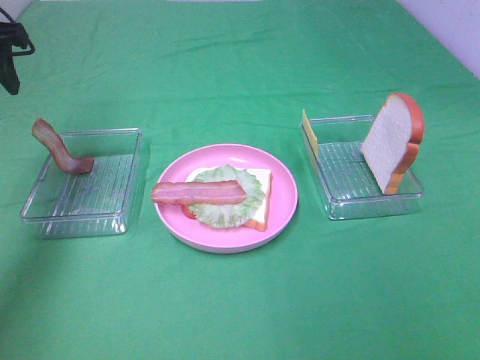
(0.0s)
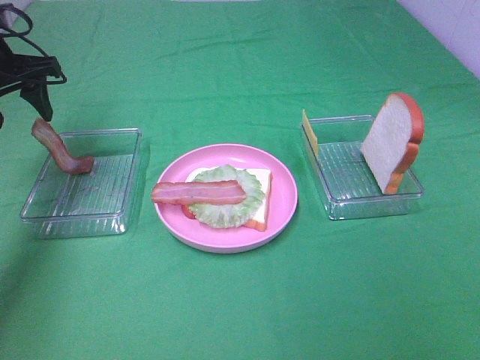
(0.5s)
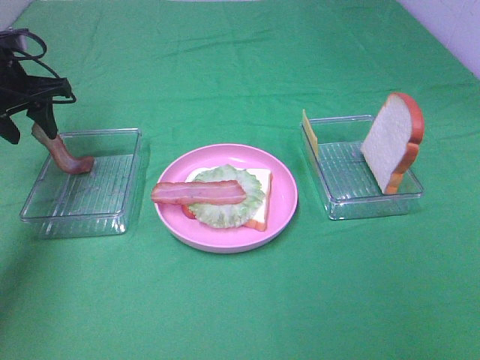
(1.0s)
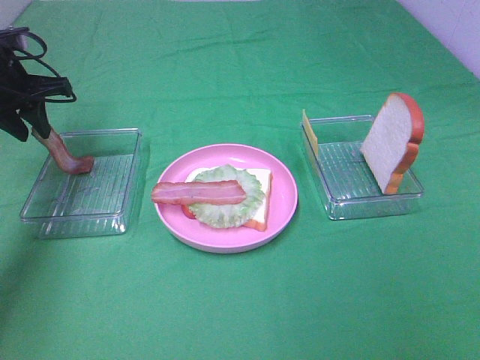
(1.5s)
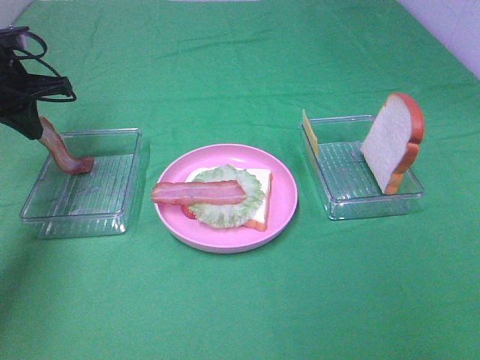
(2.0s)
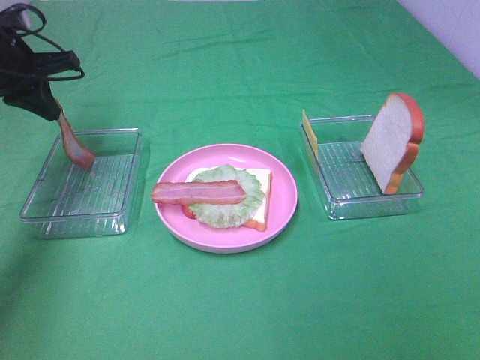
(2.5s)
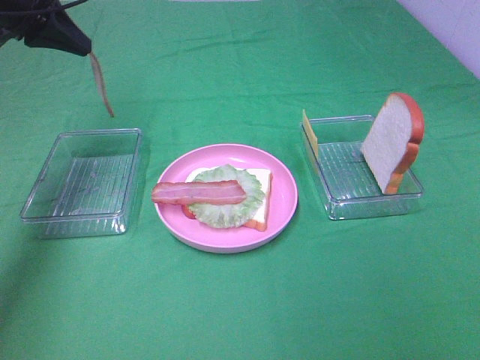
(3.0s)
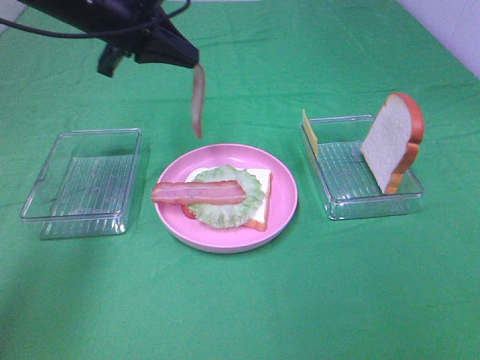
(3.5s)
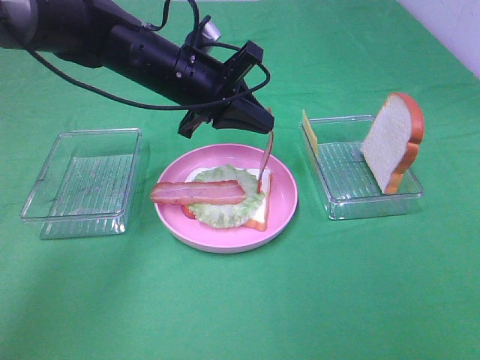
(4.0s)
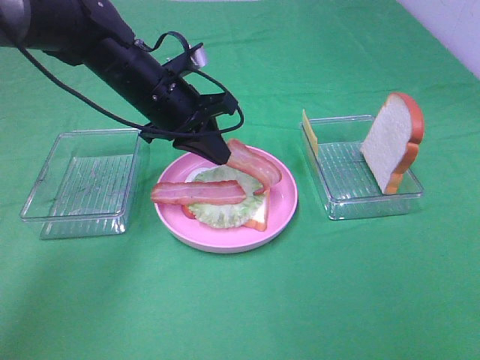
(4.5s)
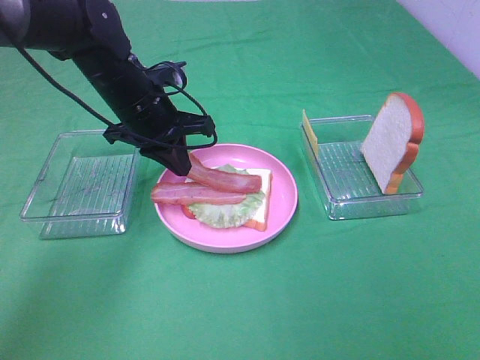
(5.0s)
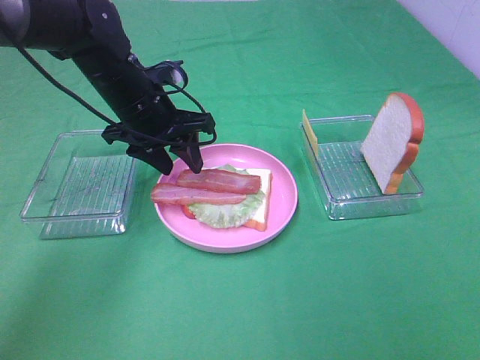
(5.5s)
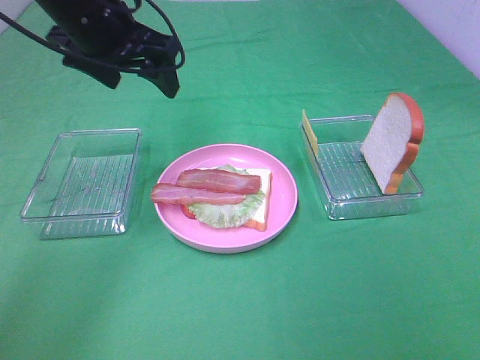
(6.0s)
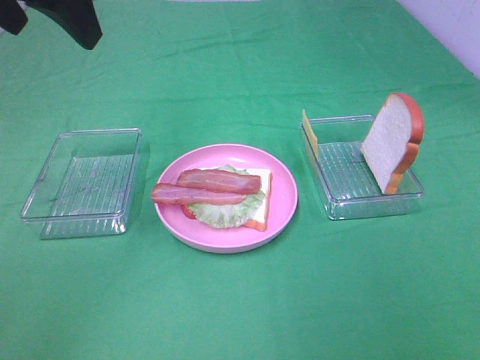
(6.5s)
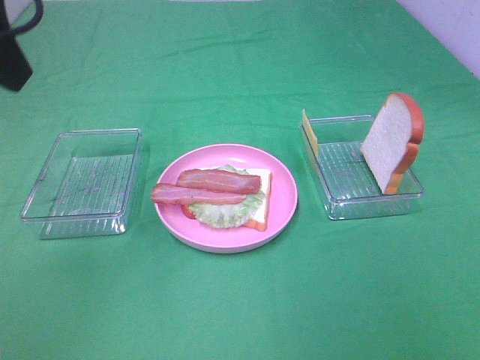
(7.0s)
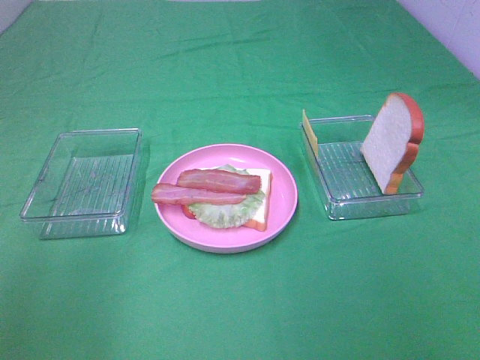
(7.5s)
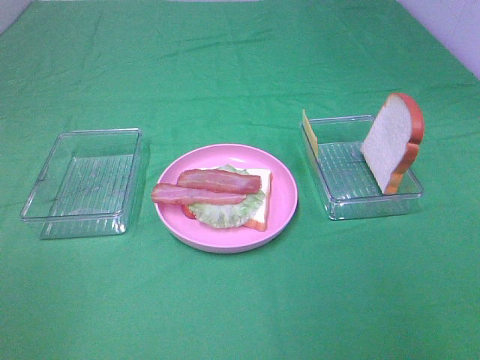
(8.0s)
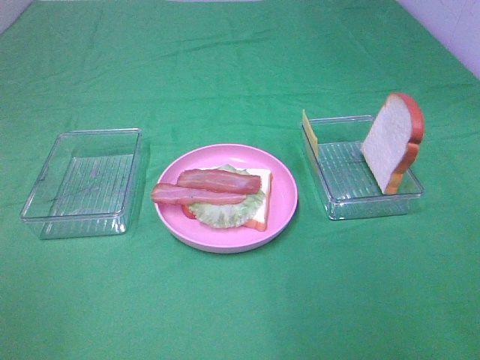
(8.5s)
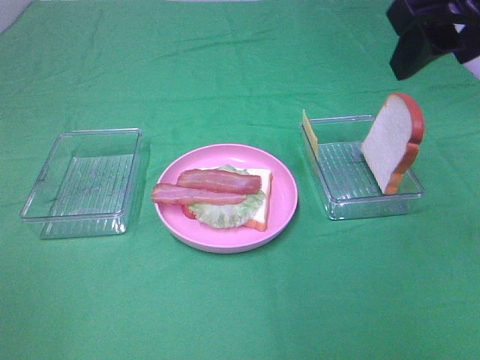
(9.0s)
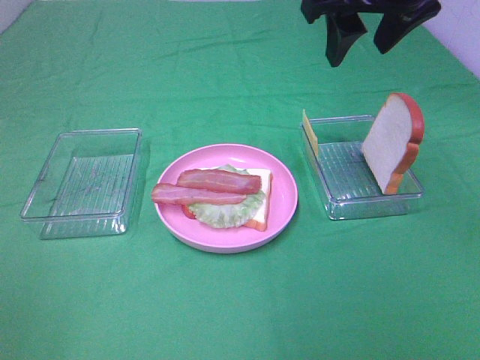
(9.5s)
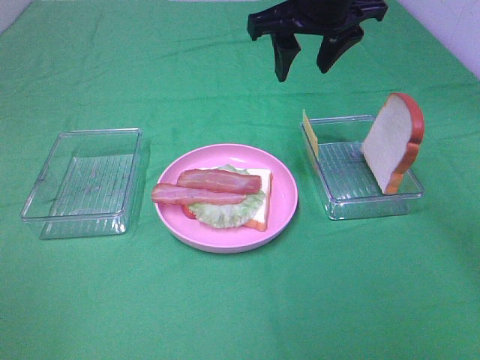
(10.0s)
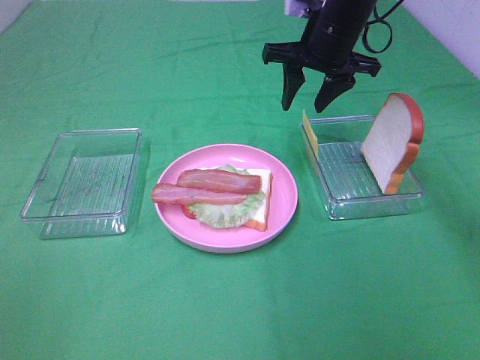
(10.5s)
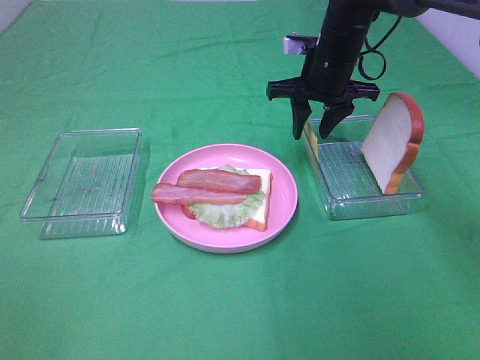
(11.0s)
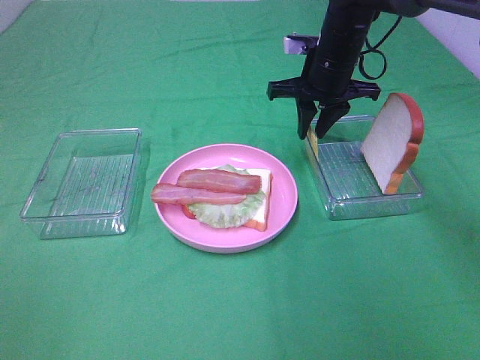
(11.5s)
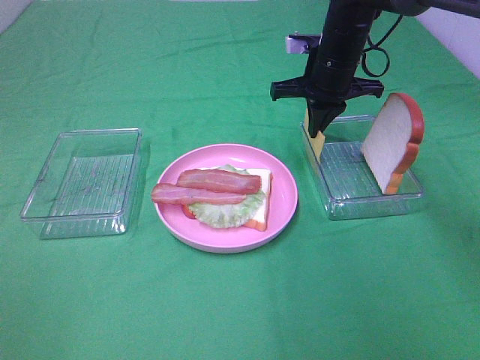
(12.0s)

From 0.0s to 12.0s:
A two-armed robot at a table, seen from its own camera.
Task of the whole recording: Make sandwiches.
Step, from 0.0s to 2.0s: Left hand:grab the bacon.
Step, from 2.5s to 5.5s: Left hand:place bacon on bacon.
From 0.0s to 2.0s: The left gripper heads downward and forward, covering roughly 10 cm, and closes.
From 2.0s to 4.0s: The left gripper shifts approximately 25 cm to the right.
From 4.0s to 6.0s: The left gripper heads upward and to the left, covering about 10 cm, and opens its fingers.
From 6.0s to 8.0s: The left gripper moves backward and to the left, roughly 40 cm, while the right gripper travels forward by roughly 5 cm.
From 8.0s to 10.0s: The right gripper moves forward and to the left, approximately 40 cm.
From 10.0s to 12.0s: The right gripper shifts about 10 cm downward and forward, and closes.

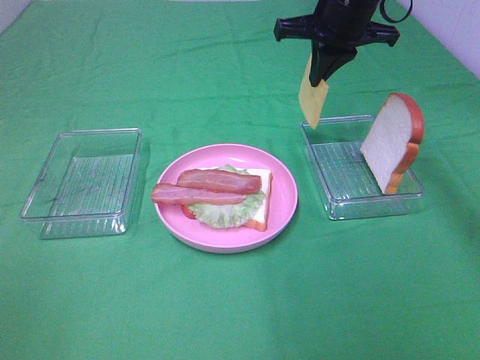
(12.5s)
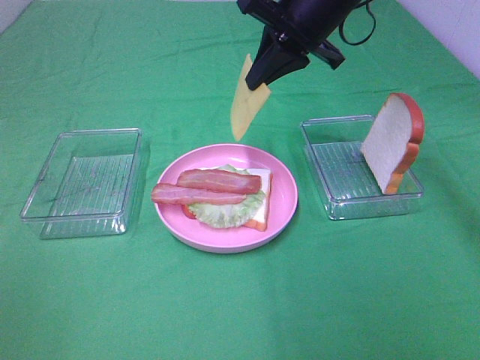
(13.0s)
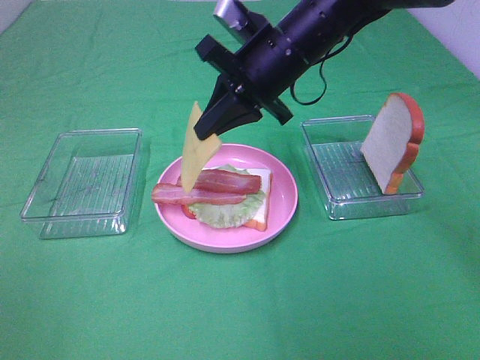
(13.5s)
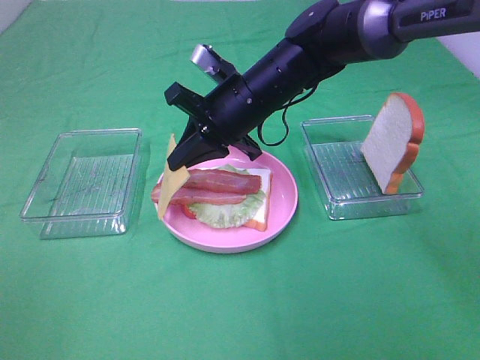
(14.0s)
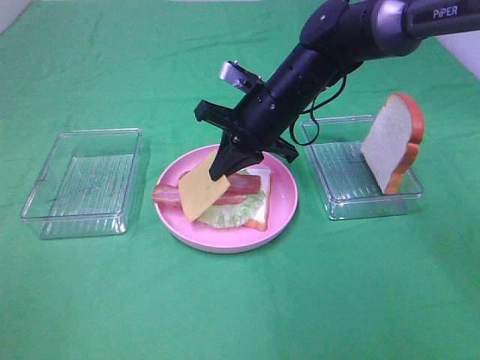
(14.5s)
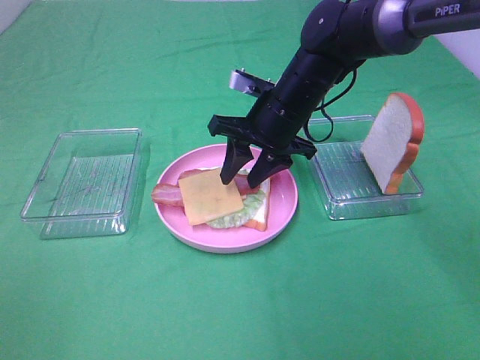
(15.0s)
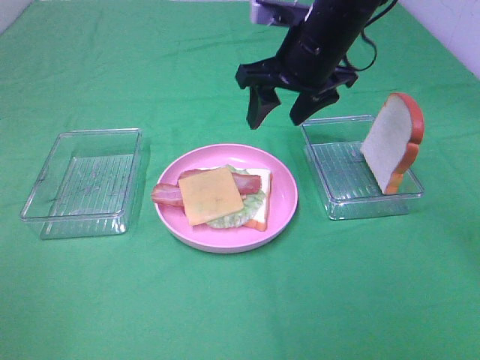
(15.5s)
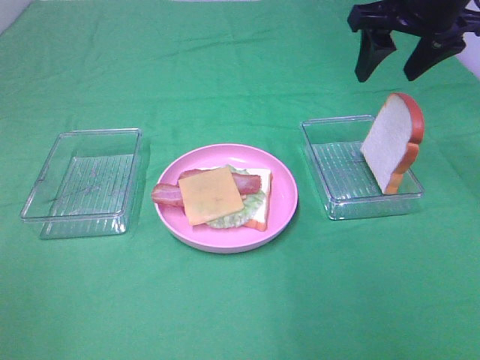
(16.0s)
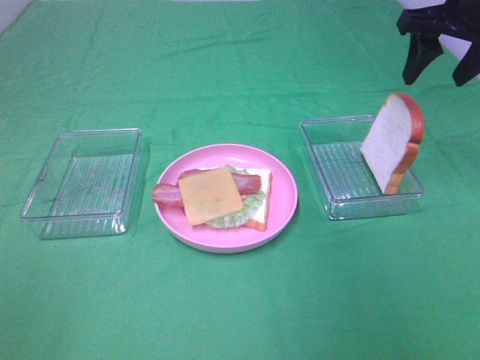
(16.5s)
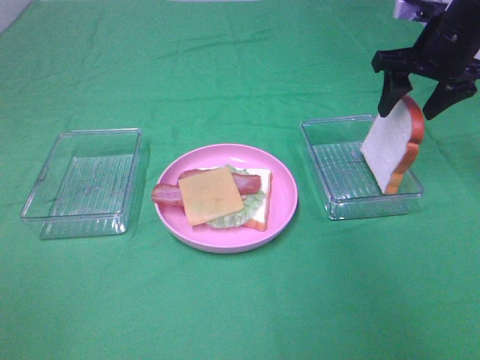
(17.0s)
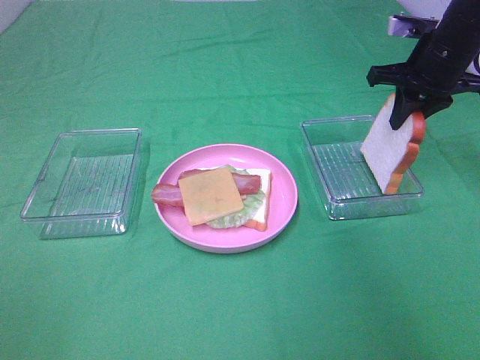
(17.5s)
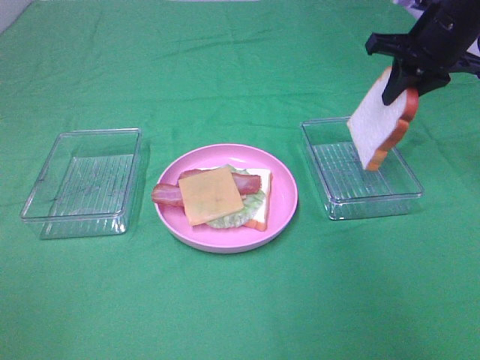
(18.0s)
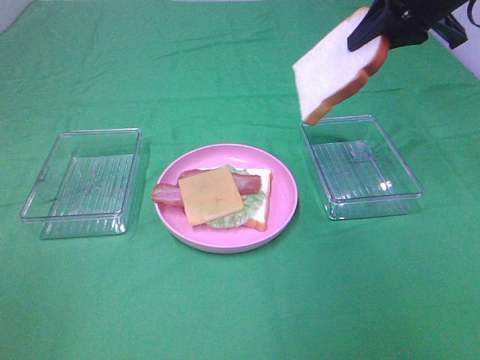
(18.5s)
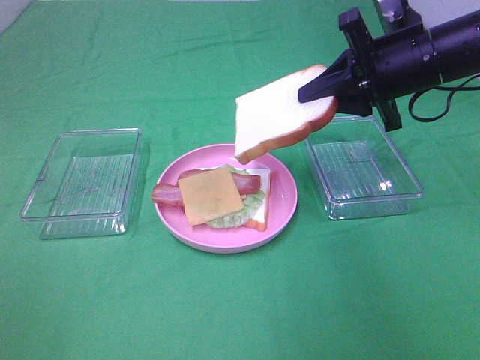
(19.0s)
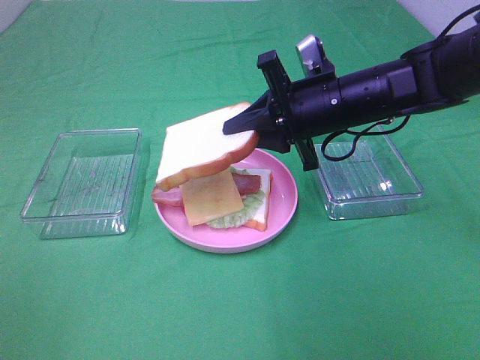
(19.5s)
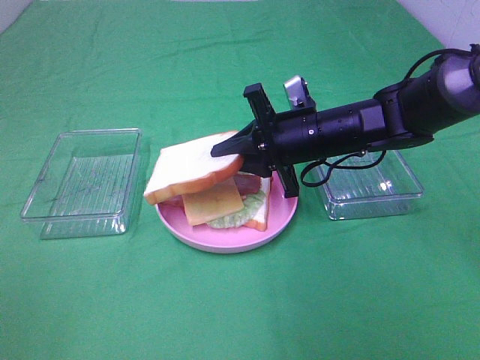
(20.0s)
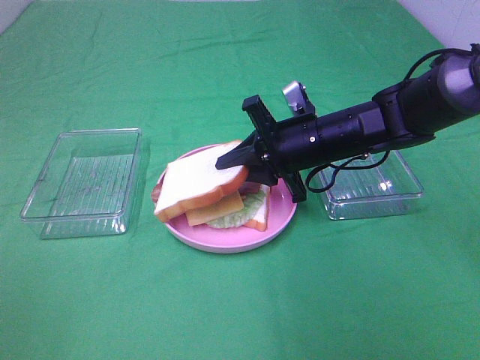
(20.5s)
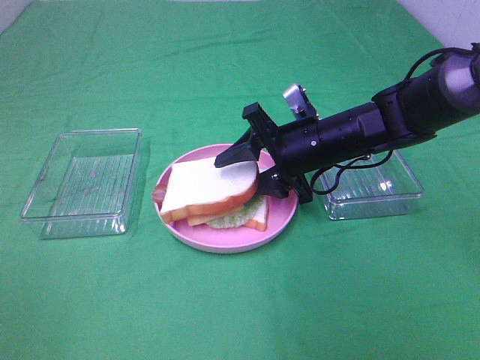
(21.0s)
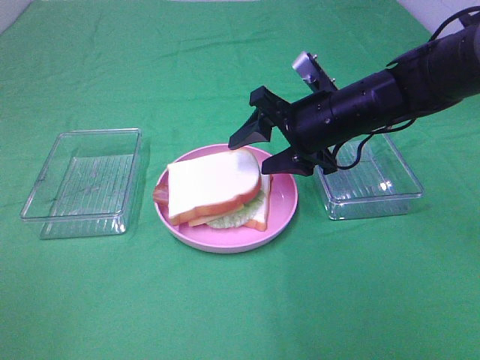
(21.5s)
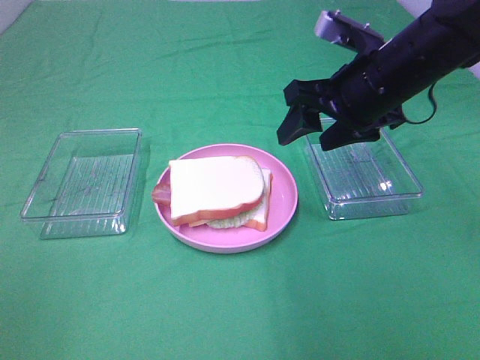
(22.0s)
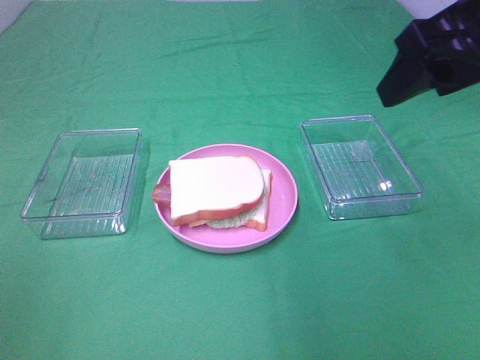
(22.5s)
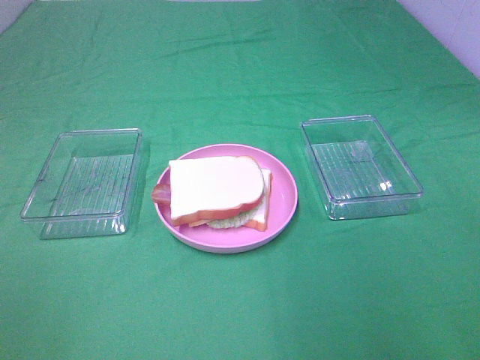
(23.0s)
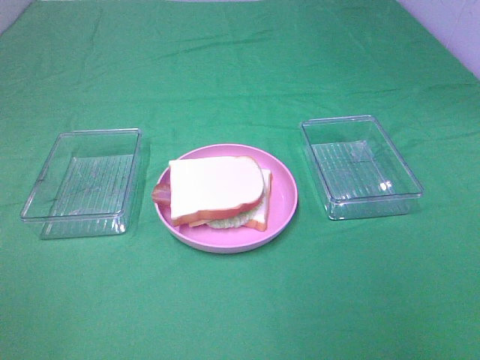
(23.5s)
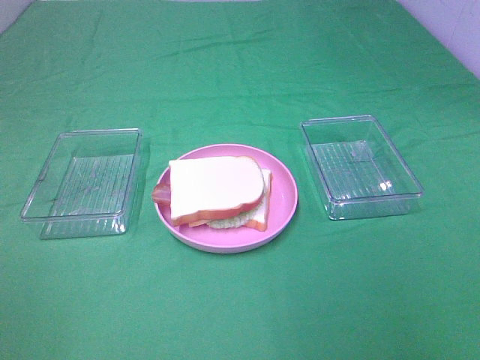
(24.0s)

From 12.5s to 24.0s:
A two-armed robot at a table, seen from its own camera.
Task of the whole recording: Make sandwiches.
Step, from 12.5s to 15.0s: Right hand:place the cheese slice on top of the bacon.
Step, from 15.5s to 17.5s: Right hand:grab the bread slice.
Step, from 18.0s to 21.5s: Right hand:place the bread slice on the cheese slice.
From 12.5s to 14.5s: The right gripper shifts some 15 cm downward, to the left and backward.
From 14.5s to 16.5s: The right gripper shifts about 25 cm to the right and upward, and opens up.
From 16.5s to 18.5s: The right gripper goes downward and returns, approximately 10 cm each way, and closes up.
From 18.5s to 20.0s: The right gripper moves downward and to the left, roughly 20 cm.
From 20.0s to 22.0s: The right gripper goes some 10 cm upward, and opens its fingers.
From 22.0s to 24.0s: The right gripper travels backward by approximately 30 cm.

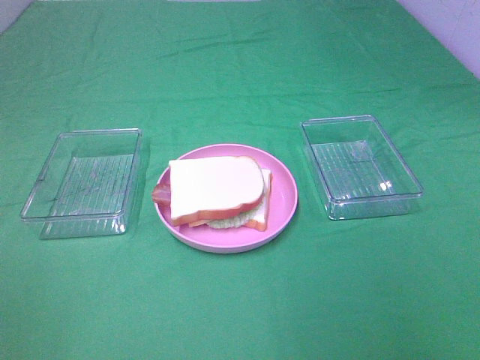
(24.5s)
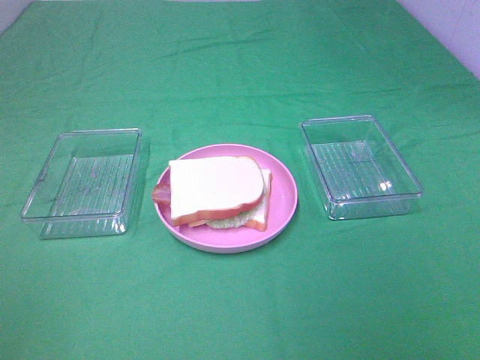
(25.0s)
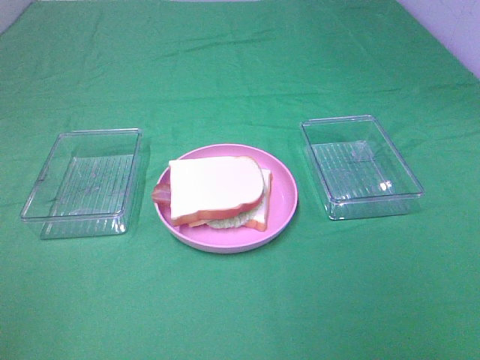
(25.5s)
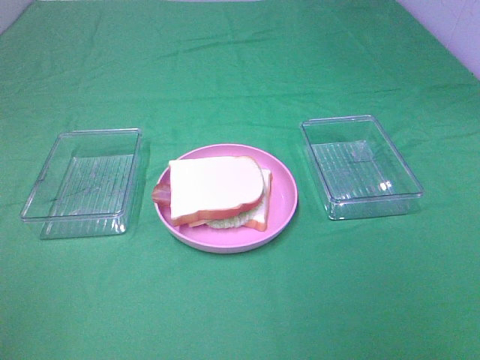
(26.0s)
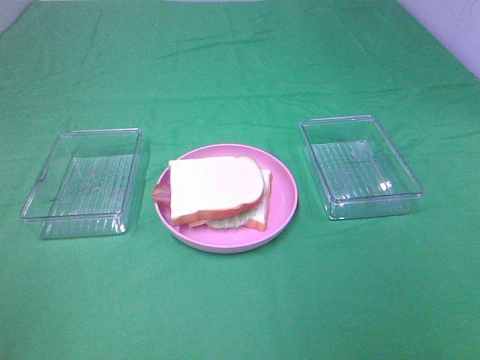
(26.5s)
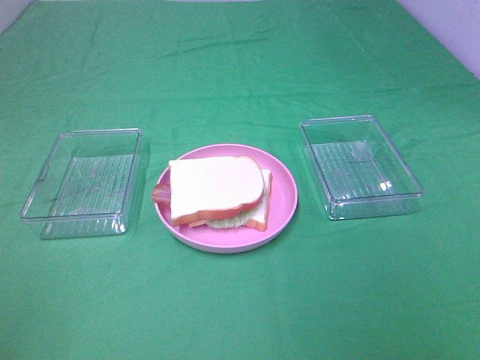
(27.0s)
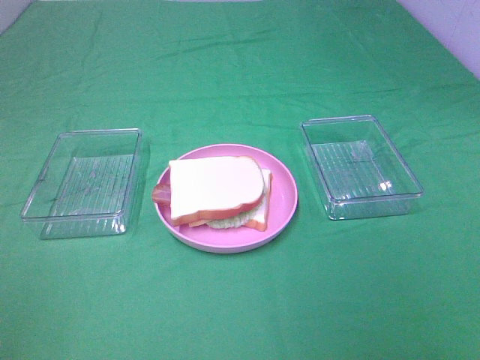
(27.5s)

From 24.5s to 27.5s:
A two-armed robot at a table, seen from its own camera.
Task of the whole recording: Make sandwiches.
From 26.0s to 27.5s: Both grippers stay put.
